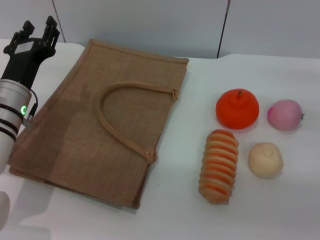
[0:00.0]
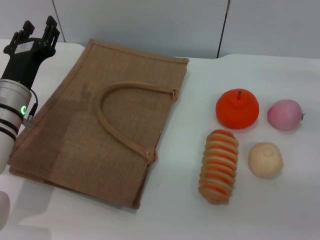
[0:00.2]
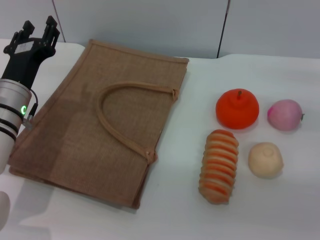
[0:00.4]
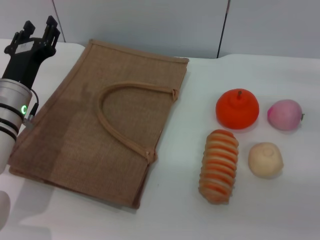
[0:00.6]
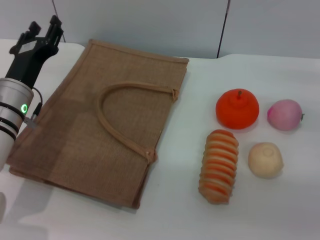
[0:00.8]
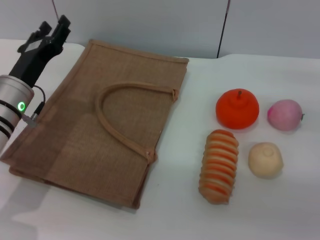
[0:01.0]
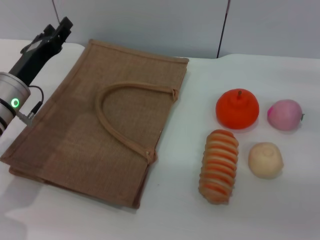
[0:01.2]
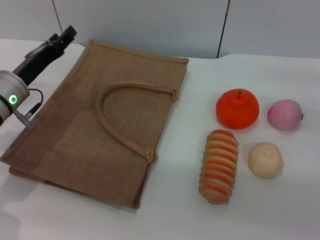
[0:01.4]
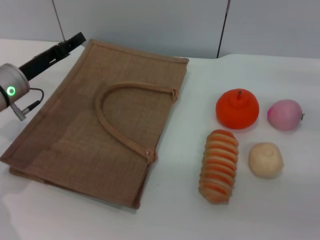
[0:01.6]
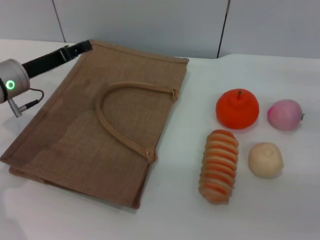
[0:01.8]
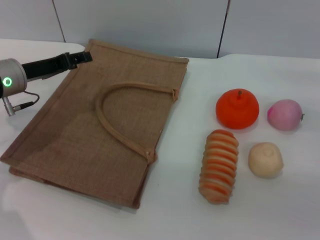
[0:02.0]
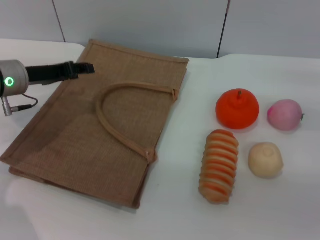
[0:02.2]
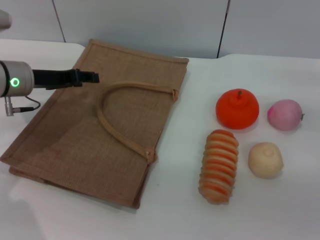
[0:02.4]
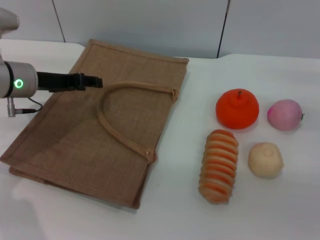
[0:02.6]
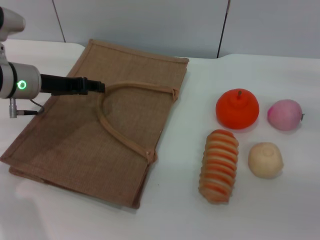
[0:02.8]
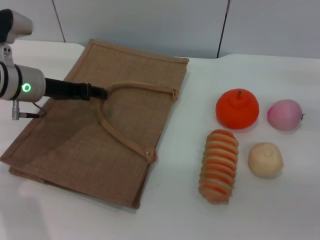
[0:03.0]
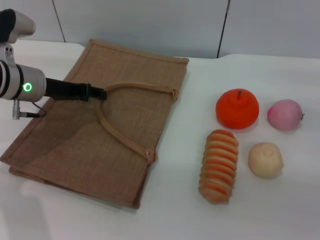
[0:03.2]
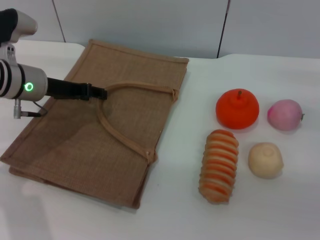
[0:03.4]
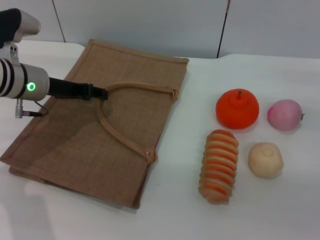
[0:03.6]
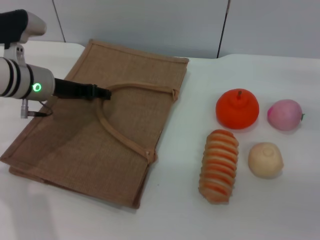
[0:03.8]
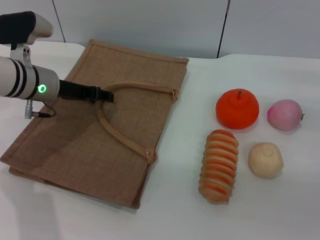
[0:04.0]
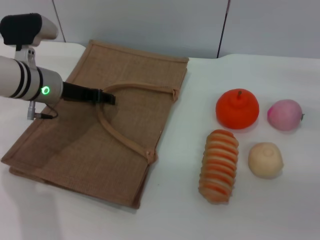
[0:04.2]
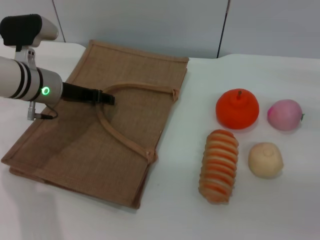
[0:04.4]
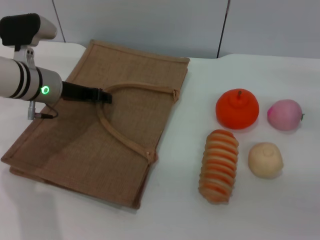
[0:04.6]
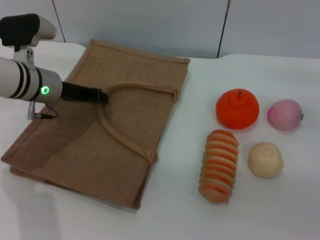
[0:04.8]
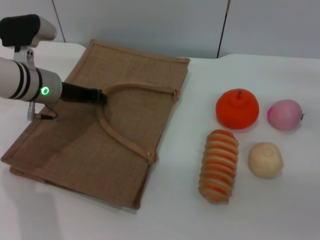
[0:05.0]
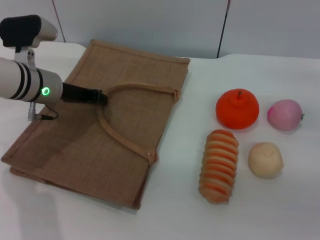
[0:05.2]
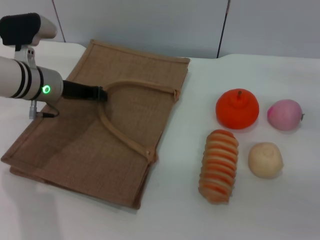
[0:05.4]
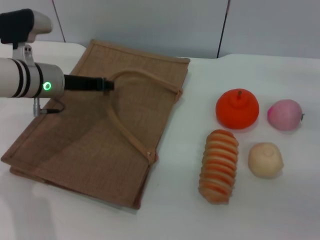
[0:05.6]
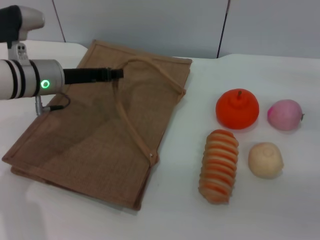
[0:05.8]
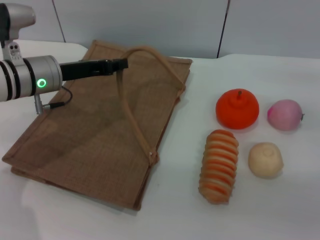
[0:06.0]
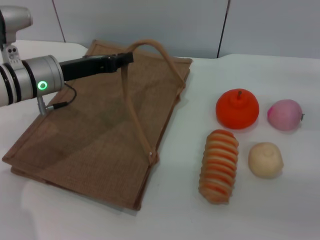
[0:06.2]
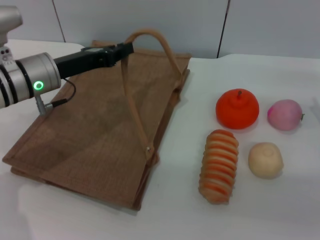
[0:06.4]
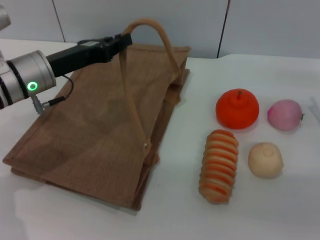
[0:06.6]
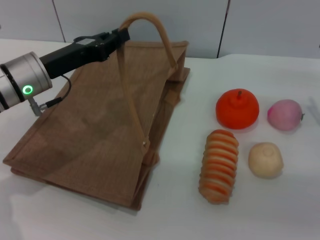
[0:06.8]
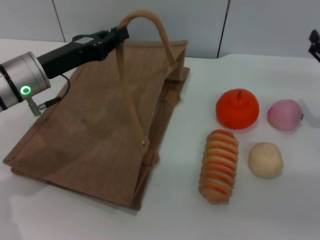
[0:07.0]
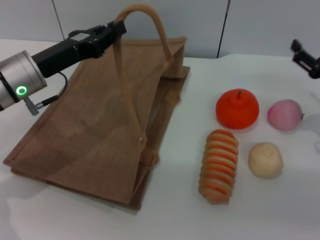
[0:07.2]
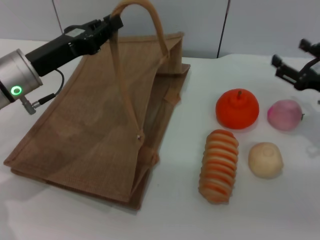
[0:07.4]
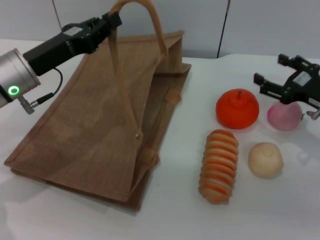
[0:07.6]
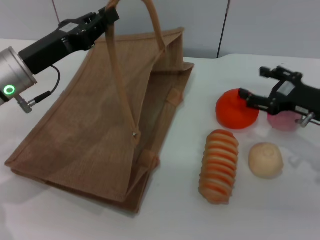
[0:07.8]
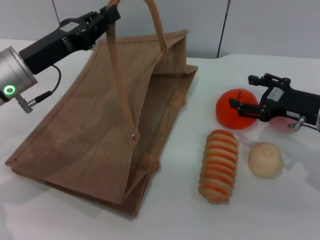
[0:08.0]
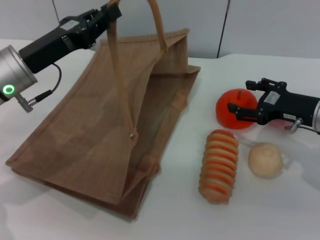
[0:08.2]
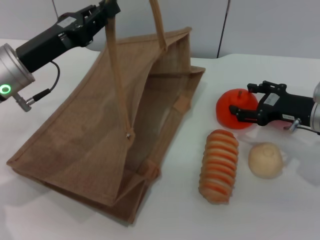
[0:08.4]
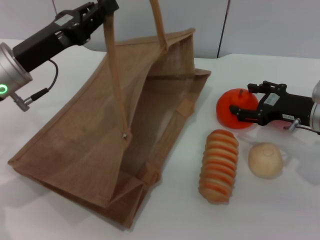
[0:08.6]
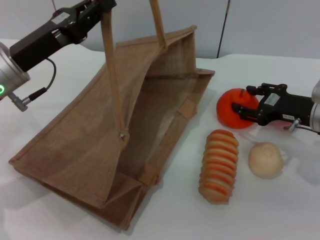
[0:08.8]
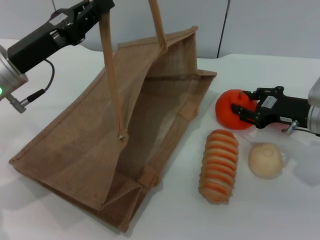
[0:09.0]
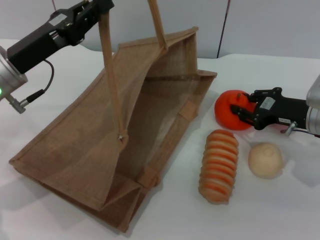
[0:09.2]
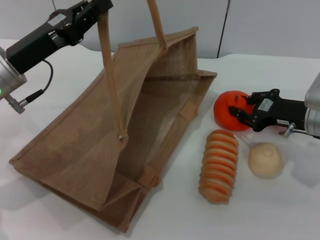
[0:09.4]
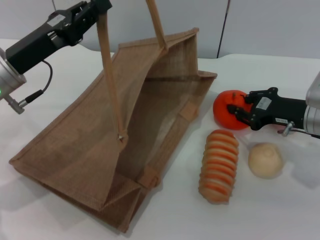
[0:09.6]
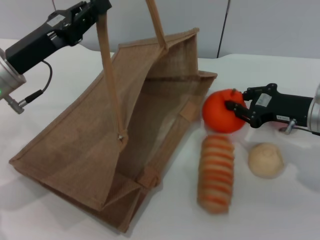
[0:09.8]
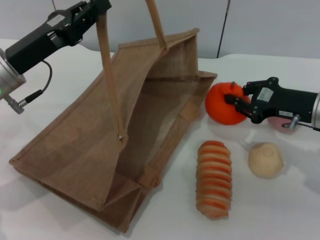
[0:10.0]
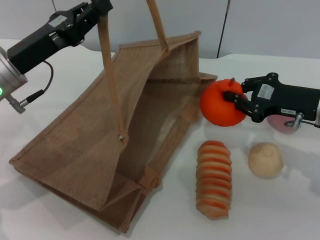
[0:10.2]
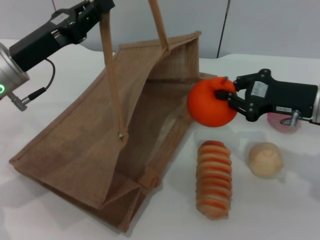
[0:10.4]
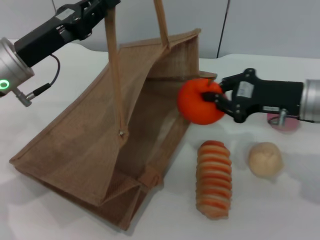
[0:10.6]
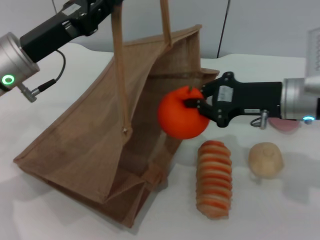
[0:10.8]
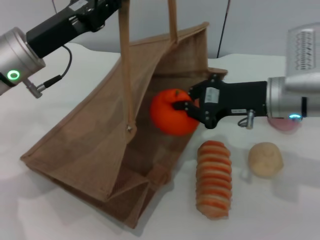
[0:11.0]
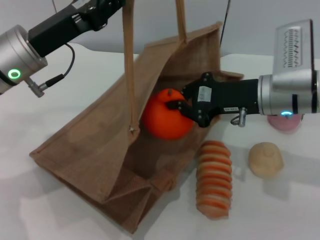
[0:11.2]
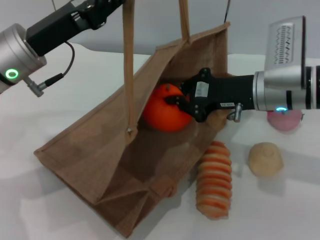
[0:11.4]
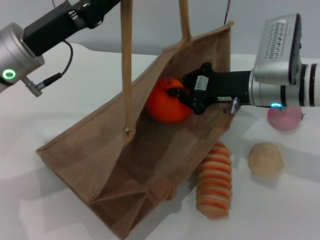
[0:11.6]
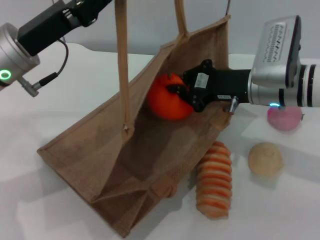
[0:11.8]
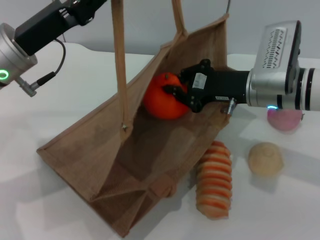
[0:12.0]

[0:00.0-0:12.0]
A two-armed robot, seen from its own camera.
Task of the whole recording: pick up the orange and peach from the table and place it in the brown handbag.
Step, 0:00.0 to 0:06.6: Lift the woven bag with the left gripper to open it.
Step, 0:06.8 to 0:10.0: Pick up the orange with the right gripper.
0:00.0 to 0:01.6: The left gripper ends up approximately 5 cm from where it was.
0:03.0 to 0:04.4: The grippers stay close to where they were, moving slightly.
0:04.4 to 0:06.0: The left gripper closes up.
0:09.0 to 0:10.4: The right gripper closes its fingers.
0:10.4 to 0:12.0: The right gripper moves to the left, about 10 cm.

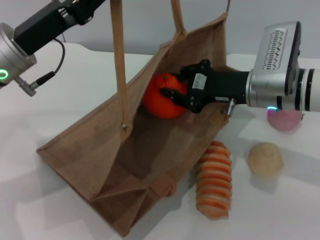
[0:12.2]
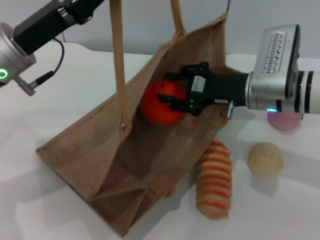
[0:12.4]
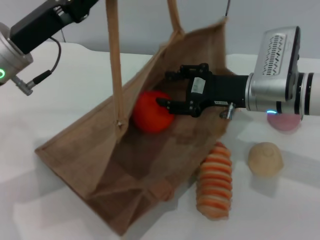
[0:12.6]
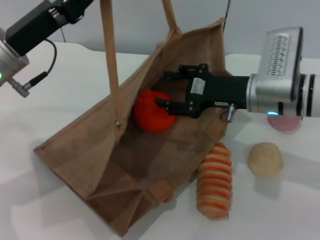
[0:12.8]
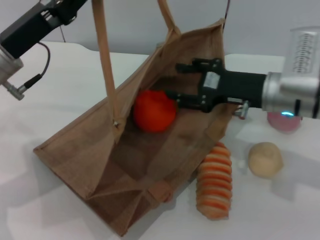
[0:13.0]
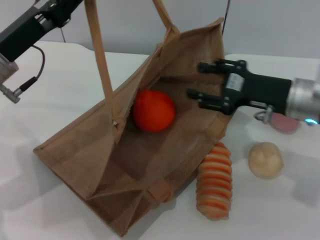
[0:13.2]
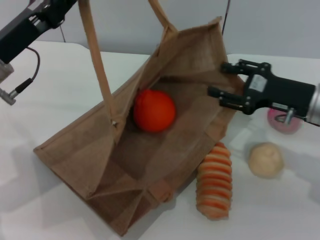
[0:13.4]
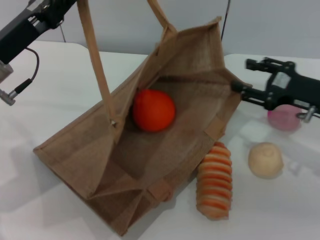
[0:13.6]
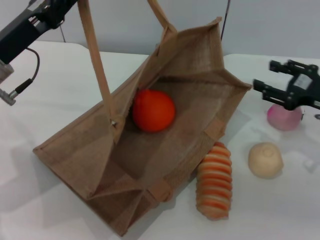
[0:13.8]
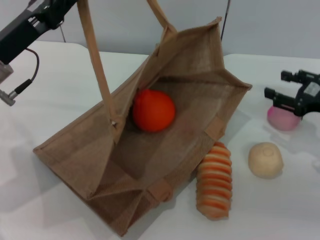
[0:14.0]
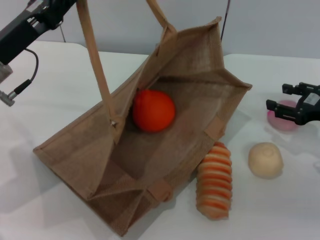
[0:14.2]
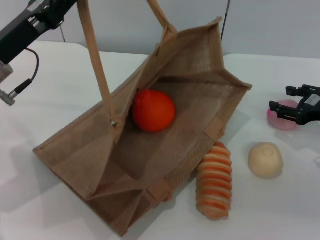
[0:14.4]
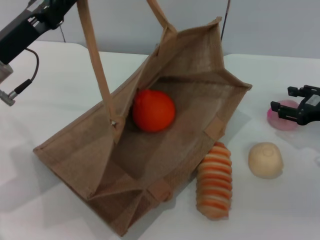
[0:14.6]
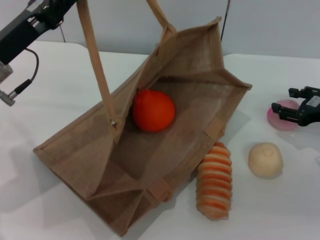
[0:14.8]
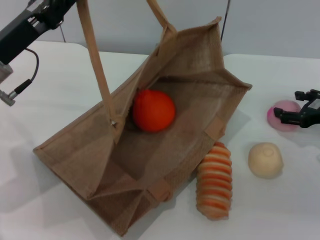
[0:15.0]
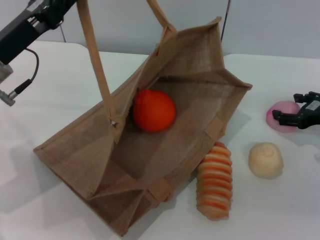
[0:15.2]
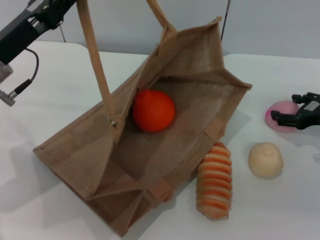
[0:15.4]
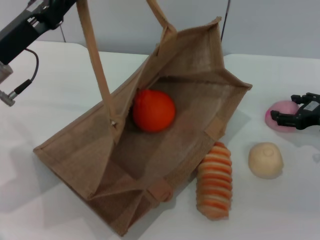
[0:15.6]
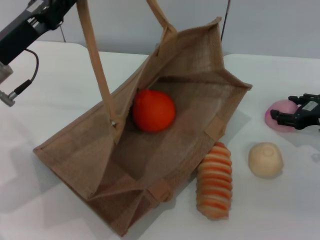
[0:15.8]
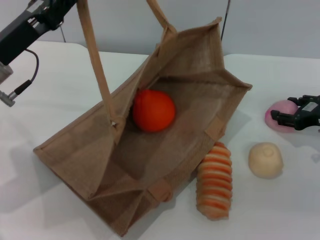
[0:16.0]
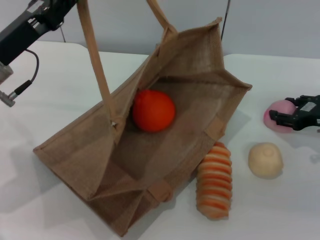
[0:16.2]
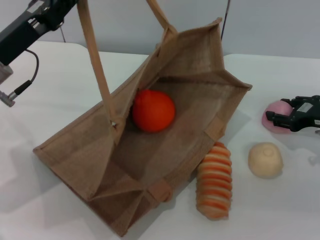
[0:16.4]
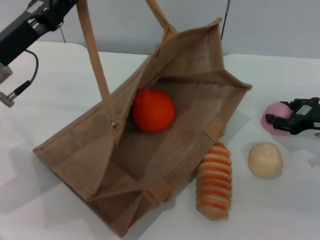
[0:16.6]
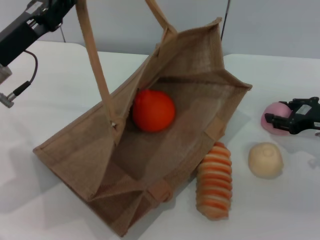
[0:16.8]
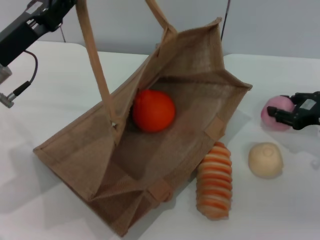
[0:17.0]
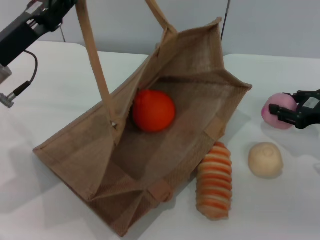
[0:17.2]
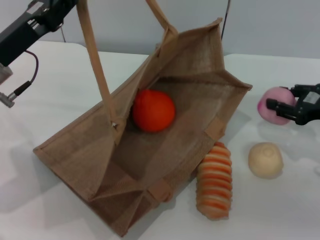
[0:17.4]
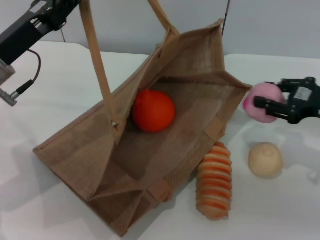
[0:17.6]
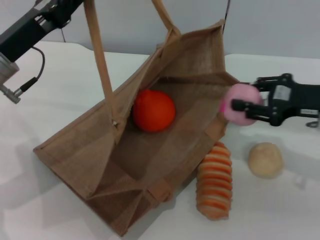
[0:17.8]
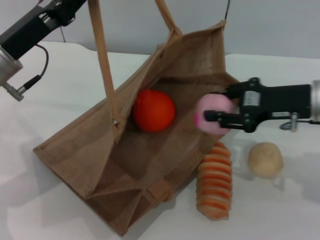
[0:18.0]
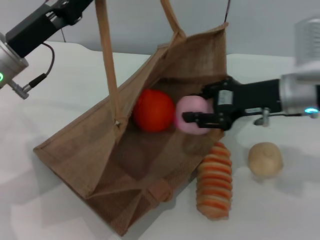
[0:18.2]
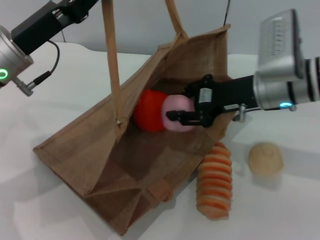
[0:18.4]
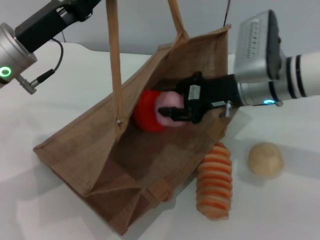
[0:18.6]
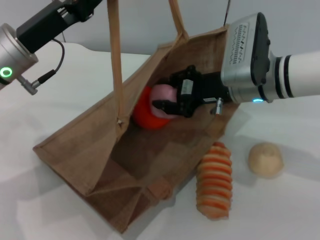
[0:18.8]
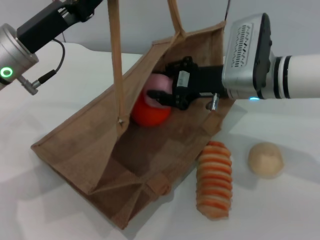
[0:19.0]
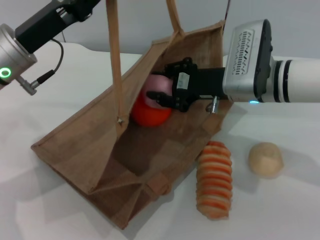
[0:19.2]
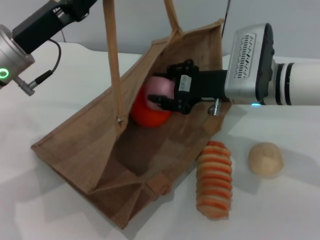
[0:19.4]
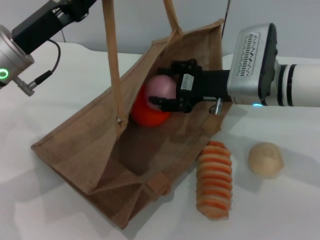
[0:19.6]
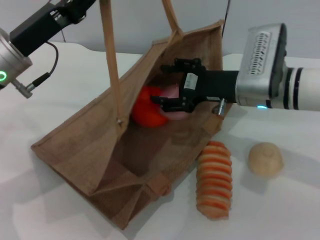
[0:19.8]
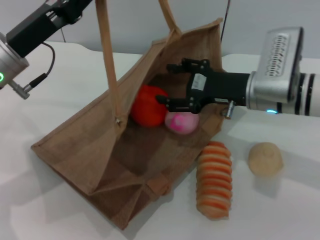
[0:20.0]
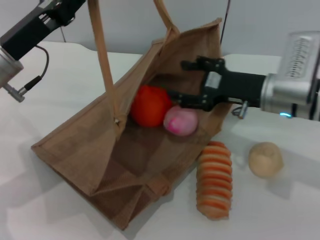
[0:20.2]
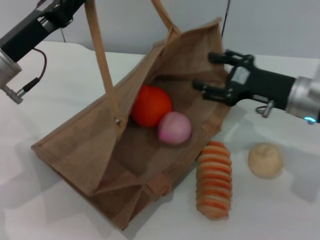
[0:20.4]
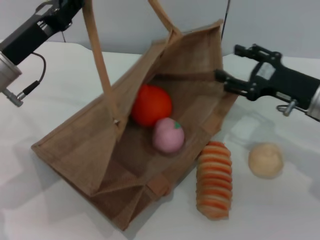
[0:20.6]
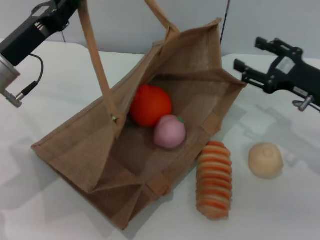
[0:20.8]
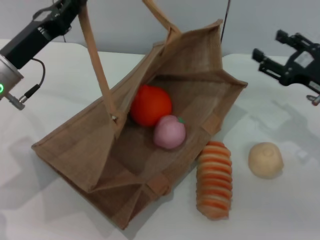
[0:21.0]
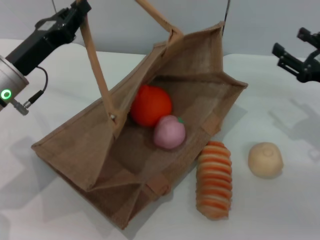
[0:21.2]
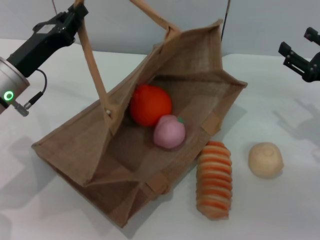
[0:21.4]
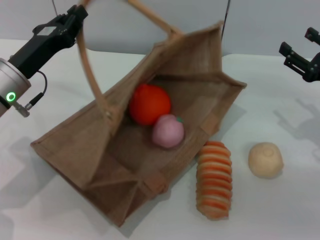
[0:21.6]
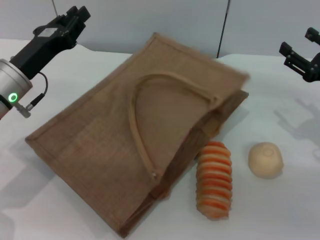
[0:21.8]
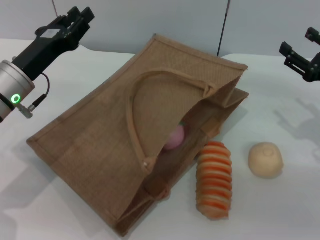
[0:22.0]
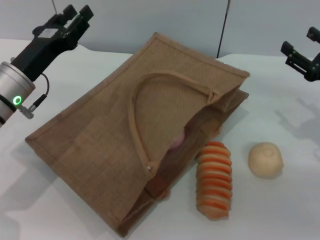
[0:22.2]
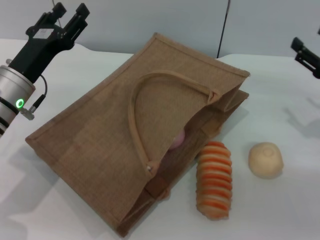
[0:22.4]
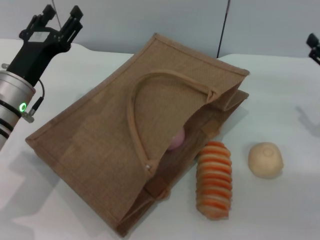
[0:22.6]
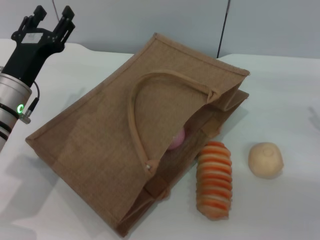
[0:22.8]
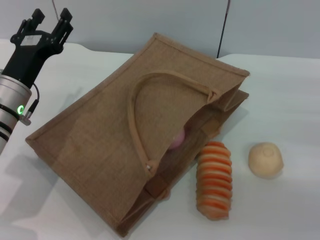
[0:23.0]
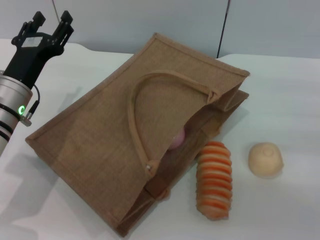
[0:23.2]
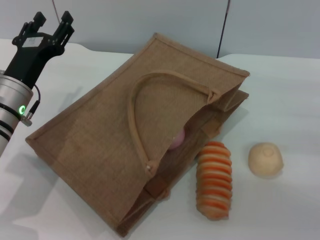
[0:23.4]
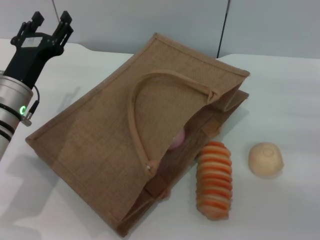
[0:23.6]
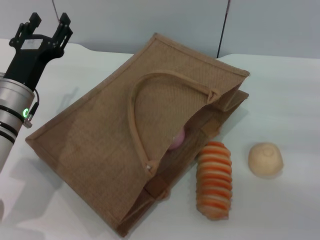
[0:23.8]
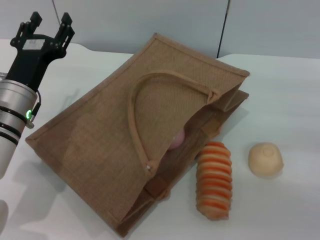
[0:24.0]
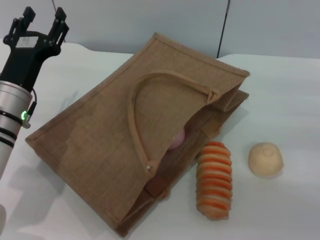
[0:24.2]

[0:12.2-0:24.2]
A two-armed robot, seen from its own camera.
Task of the whole recording: pick up the orange and peach from the table and place it in the brown handbag.
Step, 0:13.2 to 0:17.2: Pick up the peach with the right gripper.
Step, 0:17.4 to 0:20.0: Place the peach into the woven bag with the right gripper.
Step, 0:20.2 to 0:22.0: Lower the woven bag with the left gripper to close it.
0:12.2 to 0:13.8: The right gripper is displaced to the right by some 15 cm, and opens its fingers.
0:15.2 to 0:16.6: The grippers stay close to where they were, moving slightly.
0:16.6 to 0:18.2: The right gripper shifts some 15 cm to the left and upward.
0:18.2 to 0:19.8: The right gripper travels to the left by approximately 5 cm.
0:19.8 to 0:21.2: The right gripper heads to the right, covering about 15 cm.
0:21.2 to 0:22.6: The left gripper opens up.
